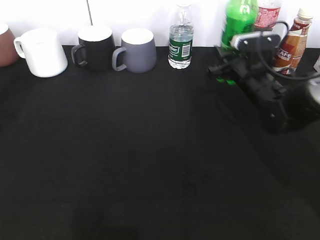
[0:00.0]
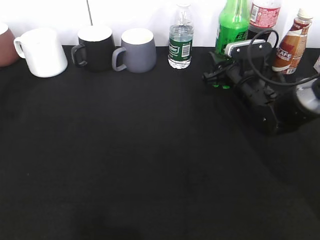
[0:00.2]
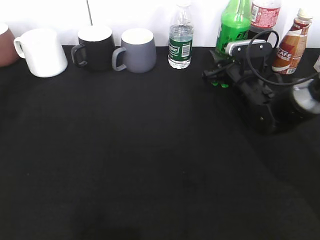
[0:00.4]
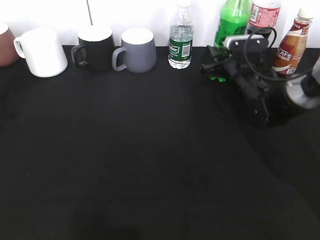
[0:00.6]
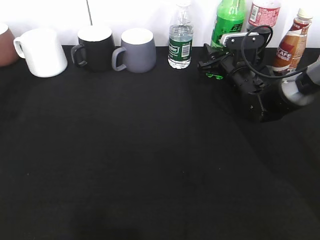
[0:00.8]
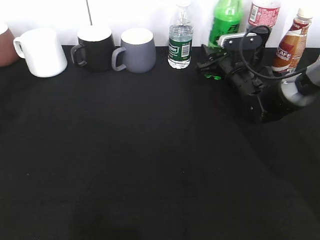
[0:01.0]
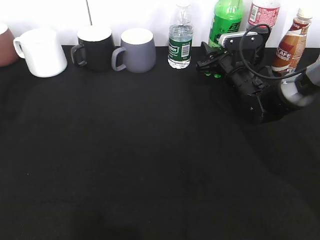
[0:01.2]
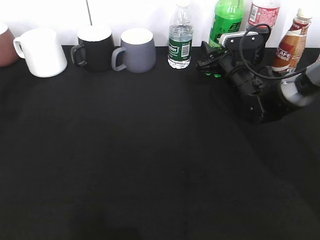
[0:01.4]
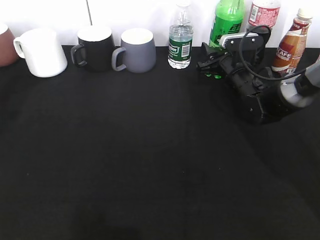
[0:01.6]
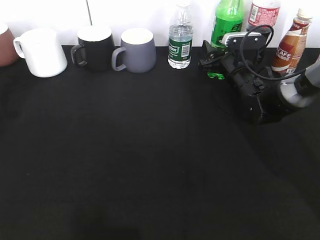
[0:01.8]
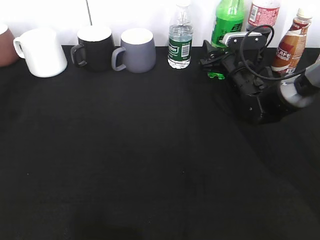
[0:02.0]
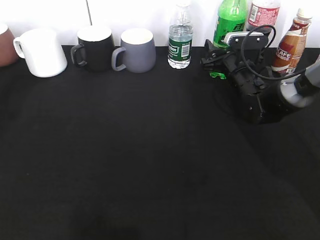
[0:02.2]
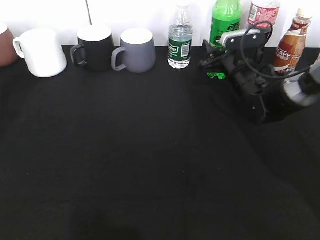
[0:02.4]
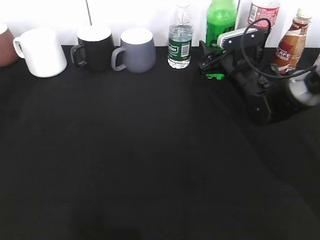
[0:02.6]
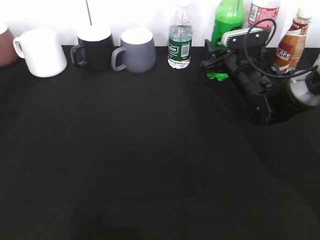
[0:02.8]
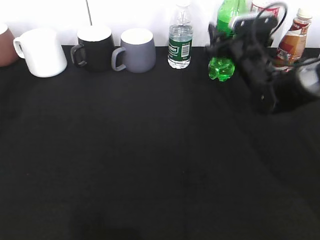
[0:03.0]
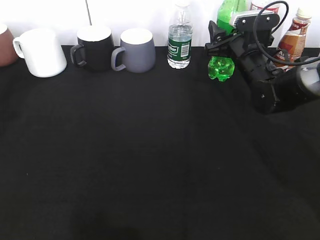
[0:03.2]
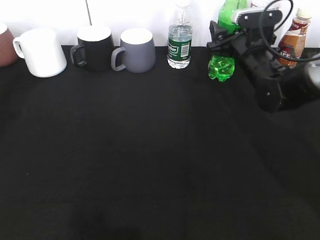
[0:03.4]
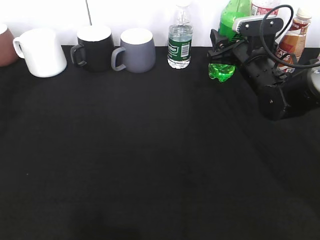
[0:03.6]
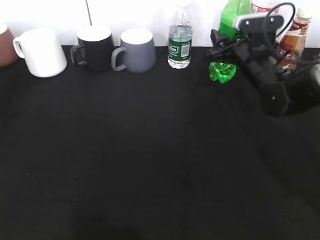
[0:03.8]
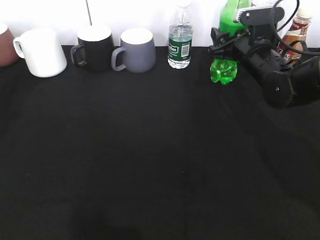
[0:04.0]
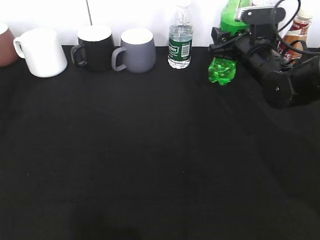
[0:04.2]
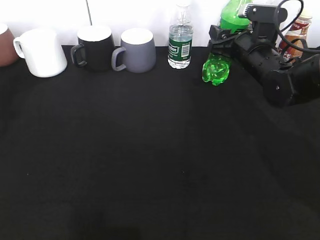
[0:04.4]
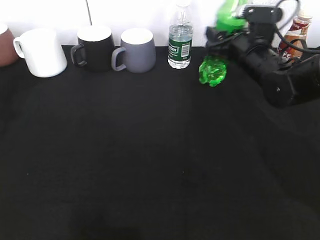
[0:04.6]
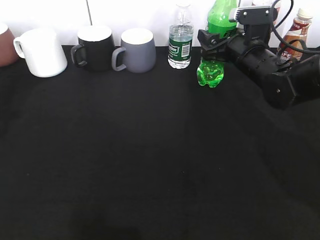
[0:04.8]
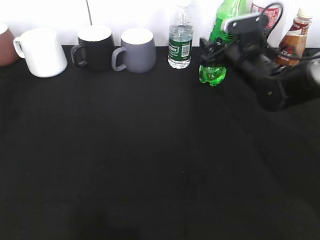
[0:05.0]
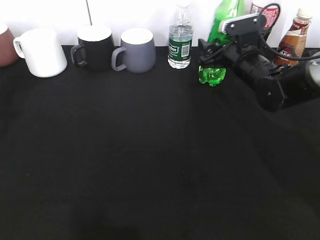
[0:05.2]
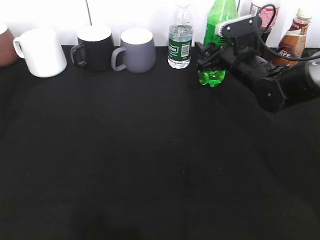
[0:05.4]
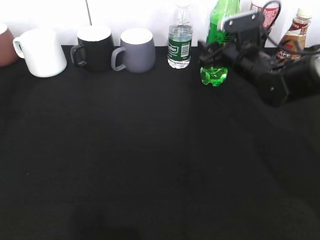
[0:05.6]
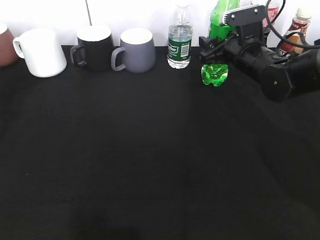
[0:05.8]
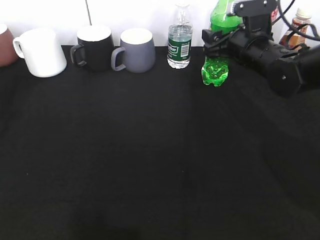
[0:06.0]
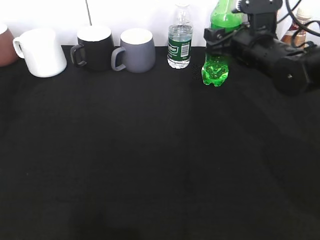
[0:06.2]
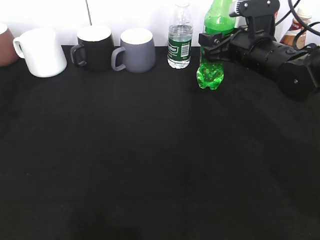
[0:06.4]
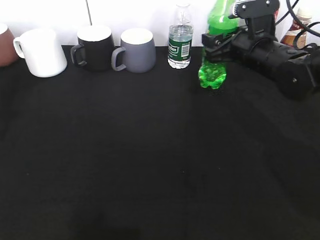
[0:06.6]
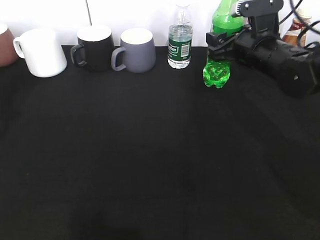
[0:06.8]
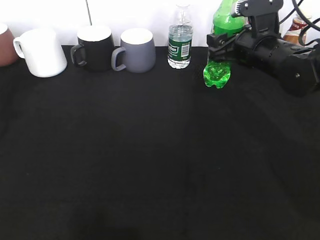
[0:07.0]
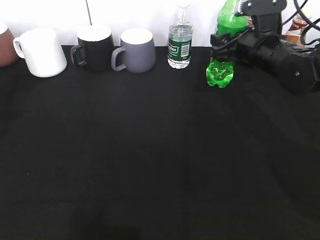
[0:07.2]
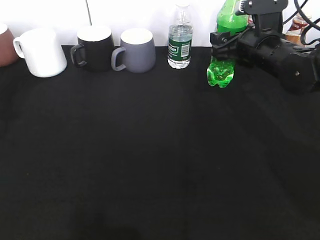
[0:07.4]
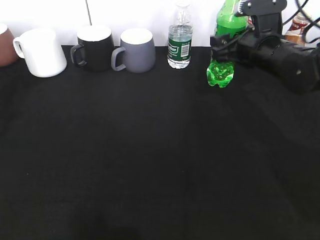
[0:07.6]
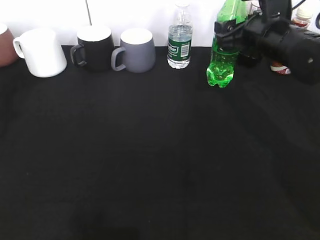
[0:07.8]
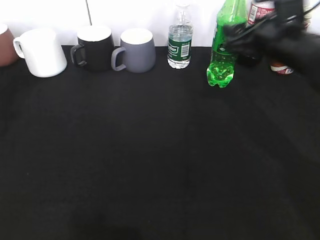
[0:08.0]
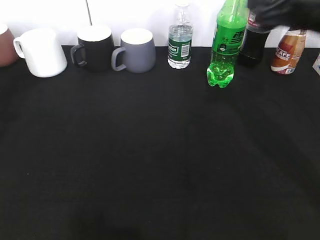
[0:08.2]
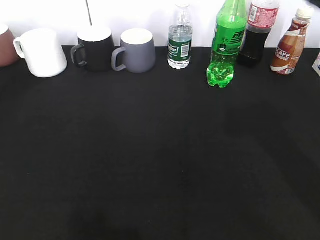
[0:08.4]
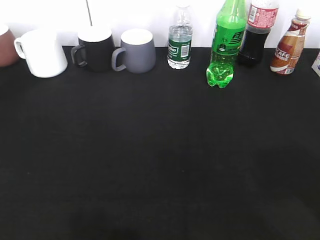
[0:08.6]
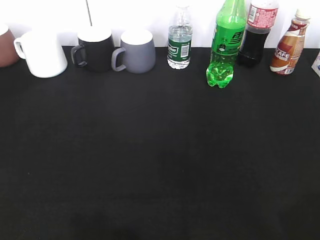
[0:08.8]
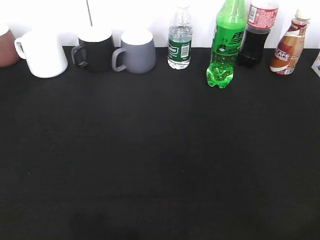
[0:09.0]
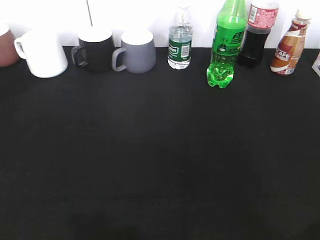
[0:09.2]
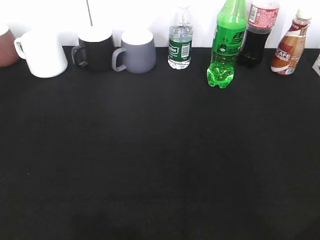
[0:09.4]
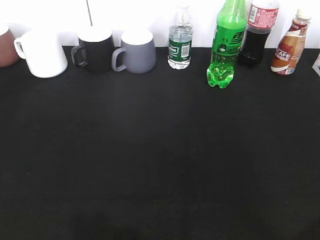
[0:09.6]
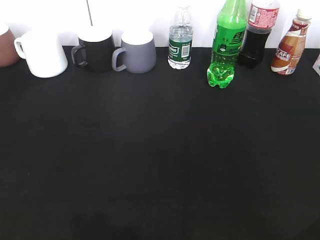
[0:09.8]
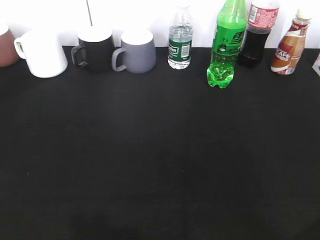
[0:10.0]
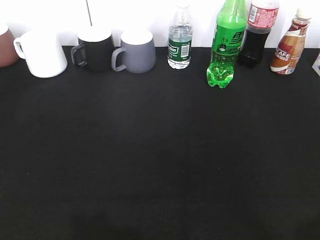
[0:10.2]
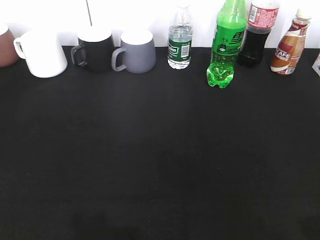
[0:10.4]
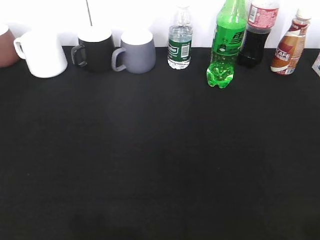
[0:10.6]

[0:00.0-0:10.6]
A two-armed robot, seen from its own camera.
Step, 0:00.0 to 0:08.2: Place the sprite bottle on the table with right gripper.
0:00.0 to 0:01.6: The grippers move only a little.
0:01.6 to 0:03.0: The right gripper moves about 5 cm.
0:03.0 to 0:06.0: There are only small adjustments of the grippers.
0:06.0 to 0:07.6: The grippers move only a little.
0:07.6 to 0:09.0: The two grippers go about 35 cm backward.

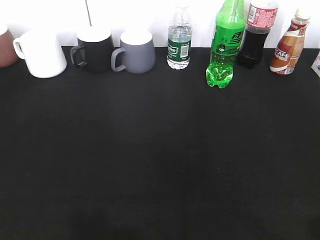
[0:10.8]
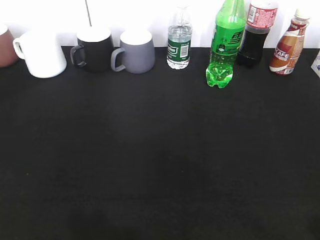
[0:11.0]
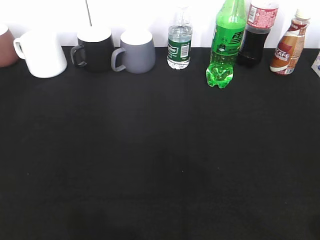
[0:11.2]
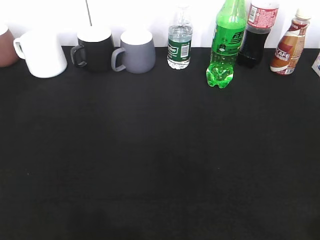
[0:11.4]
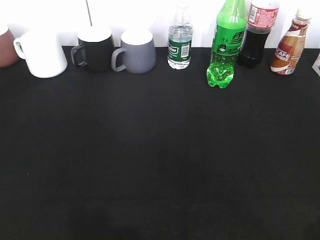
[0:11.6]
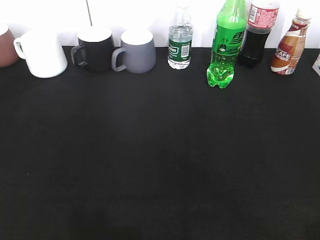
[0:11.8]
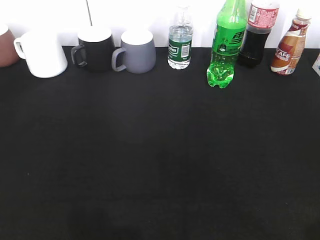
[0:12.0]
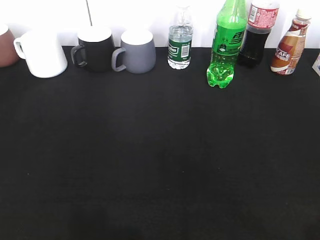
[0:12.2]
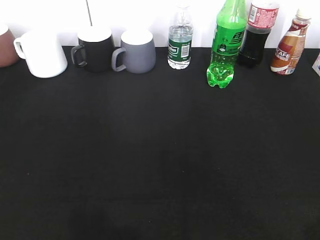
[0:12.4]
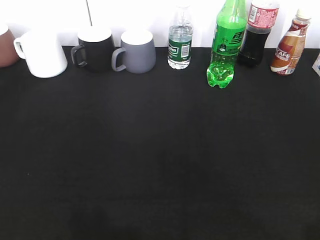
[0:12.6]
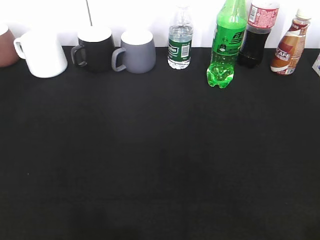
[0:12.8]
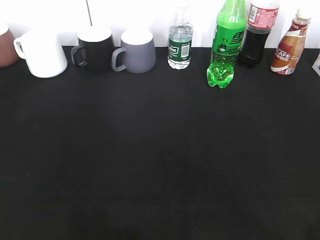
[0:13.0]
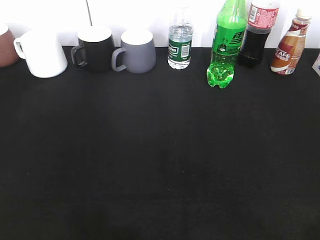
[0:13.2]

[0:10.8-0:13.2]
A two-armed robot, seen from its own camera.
0:10.8 to 0:12.0: The grippers make only small movements.
0:12.0 to 0:13.2: Both grippers stay about where they are.
